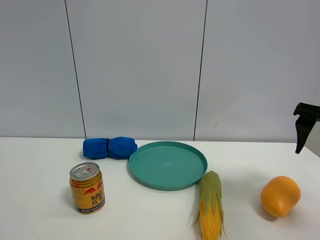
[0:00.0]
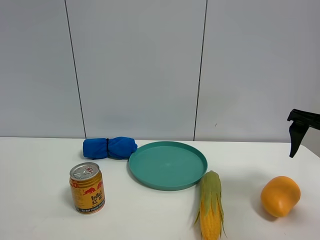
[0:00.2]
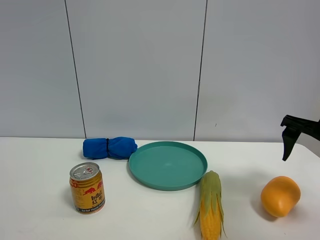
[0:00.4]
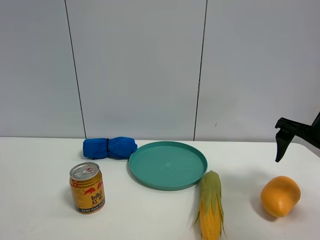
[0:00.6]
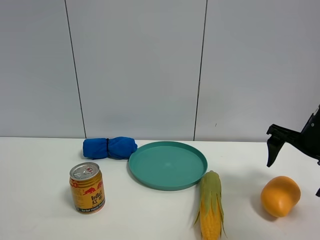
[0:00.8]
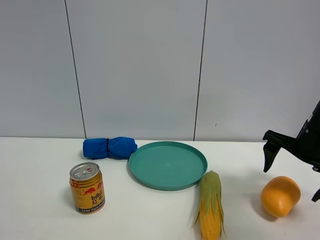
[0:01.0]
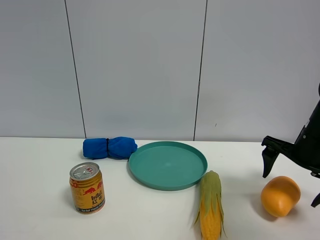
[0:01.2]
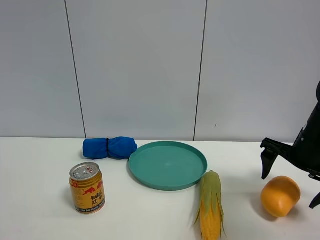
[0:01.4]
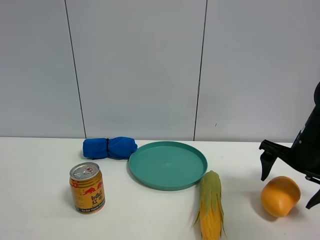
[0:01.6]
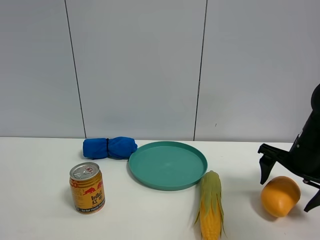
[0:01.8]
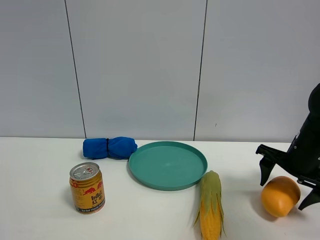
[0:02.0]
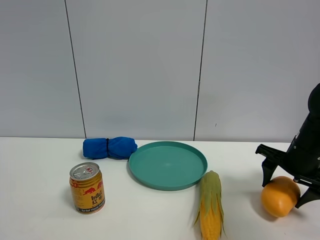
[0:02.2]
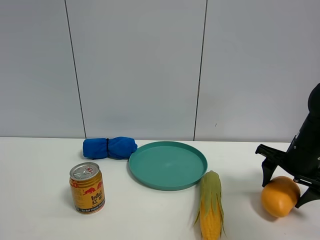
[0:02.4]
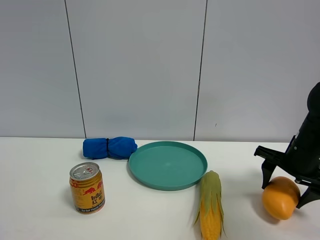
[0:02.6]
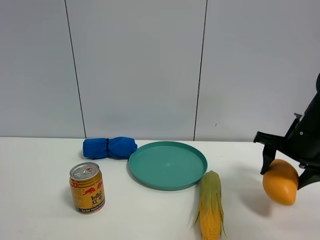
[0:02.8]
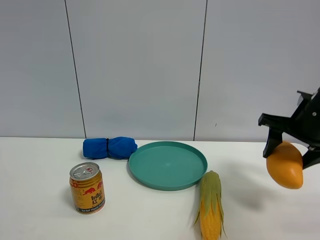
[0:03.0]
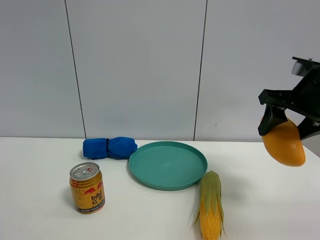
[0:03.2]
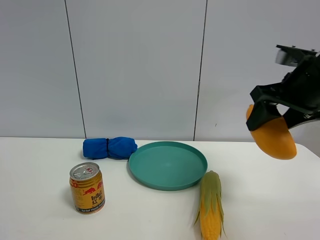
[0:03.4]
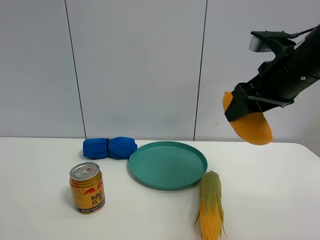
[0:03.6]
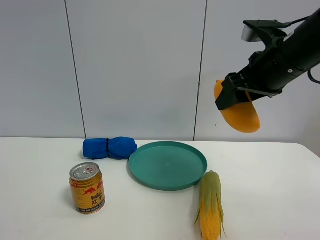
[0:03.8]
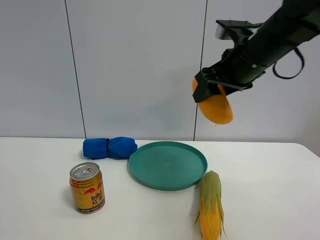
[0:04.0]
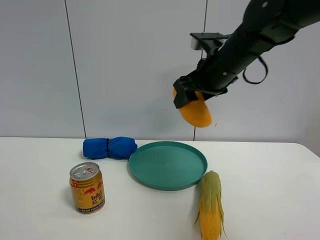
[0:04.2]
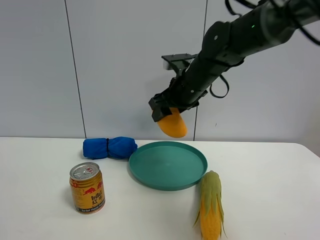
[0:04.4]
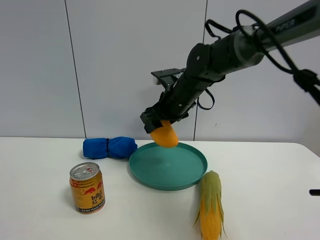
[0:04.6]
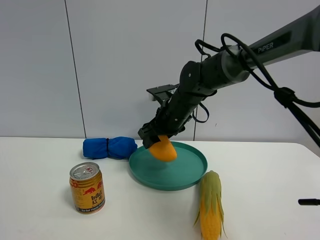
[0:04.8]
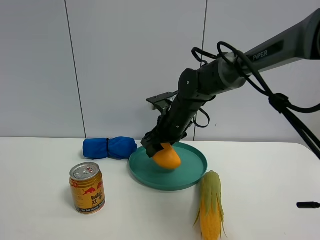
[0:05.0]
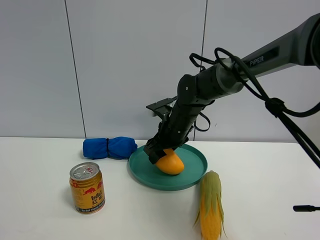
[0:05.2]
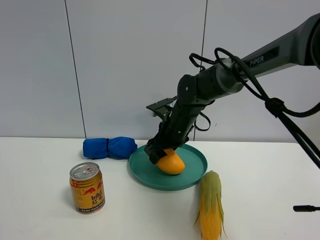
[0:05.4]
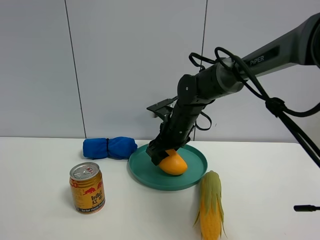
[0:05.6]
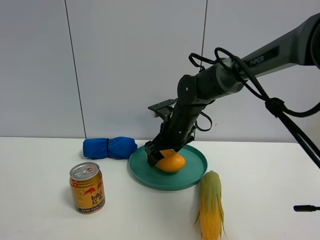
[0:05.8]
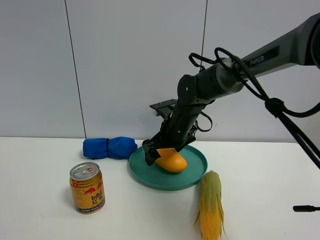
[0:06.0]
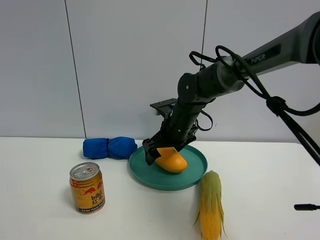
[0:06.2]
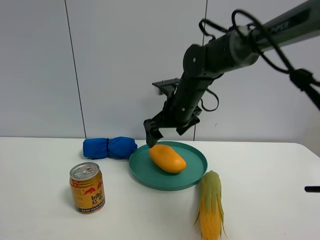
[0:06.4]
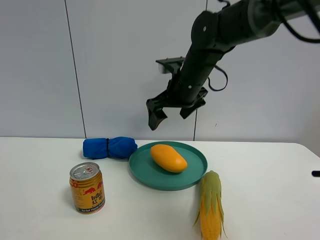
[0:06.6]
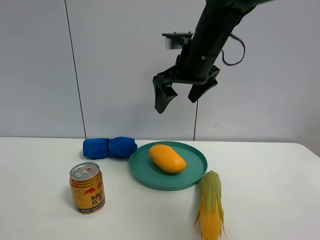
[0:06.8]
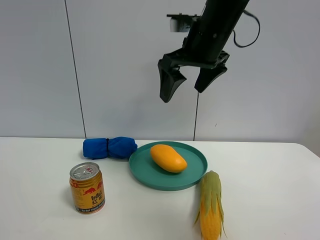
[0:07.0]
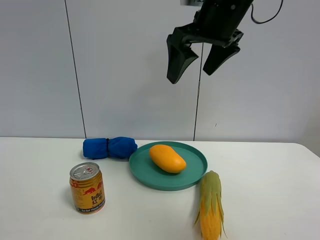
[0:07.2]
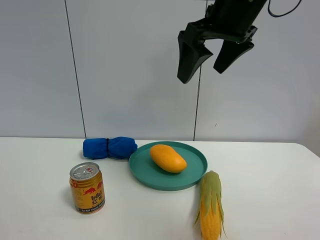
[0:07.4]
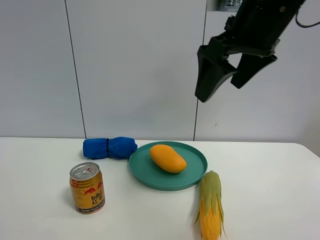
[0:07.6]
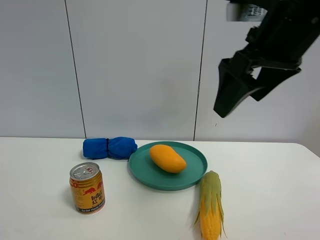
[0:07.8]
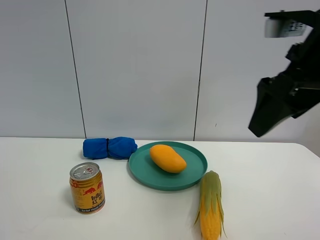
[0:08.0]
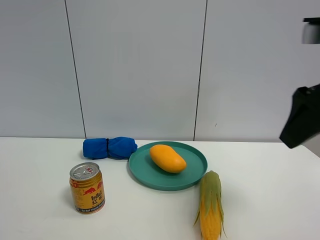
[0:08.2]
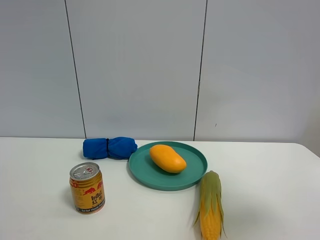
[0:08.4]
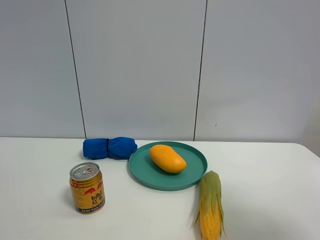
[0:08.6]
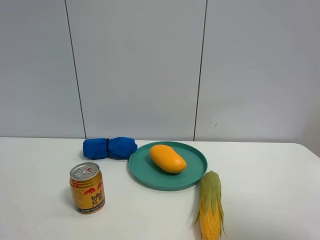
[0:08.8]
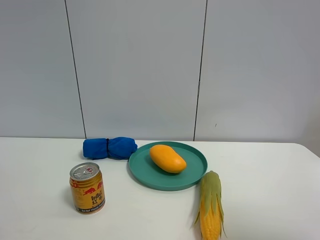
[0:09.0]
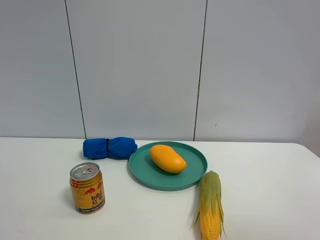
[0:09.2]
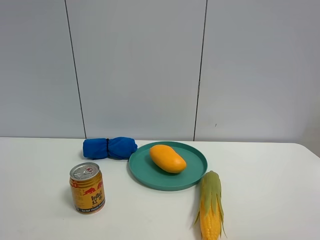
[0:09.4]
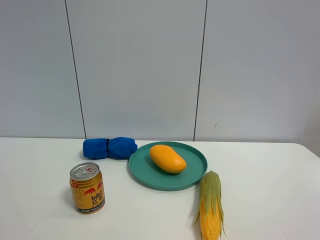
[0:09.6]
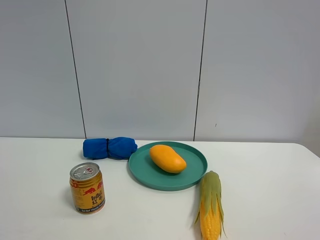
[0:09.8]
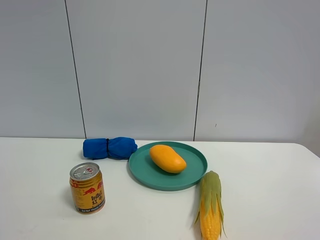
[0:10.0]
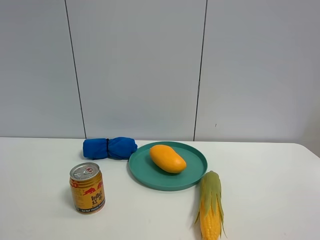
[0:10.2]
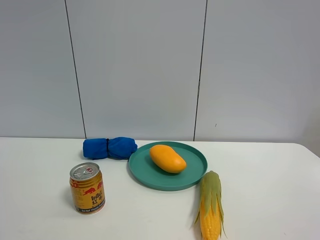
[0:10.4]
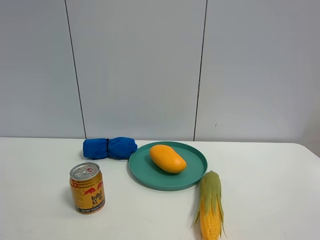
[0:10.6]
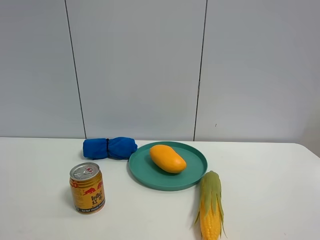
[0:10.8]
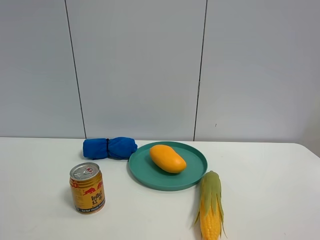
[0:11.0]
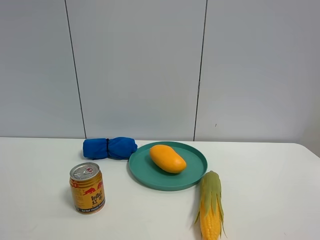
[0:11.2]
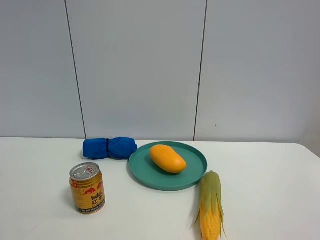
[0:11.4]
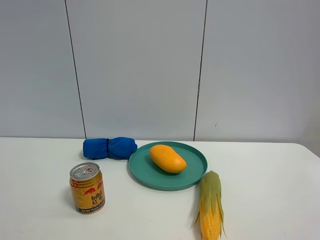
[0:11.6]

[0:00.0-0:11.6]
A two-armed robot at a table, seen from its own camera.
Task of the whole recording: the gripper move the object.
Step, 0:00.0 to 0:02.4: Grasp the mango with the right gripper.
Step, 0:02.6 to 0:06.2: Place the mango into the green plate with the right gripper.
0:00.0 to 0:01.4: The right gripper moves downward, roughly 10 cm.
0:01.4 to 0:02.8: The right gripper closes.
0:02.8 to 0:04.4: The right gripper travels to the left and forward by about 25 cm.
0:04.4 to 0:05.8: The right gripper is displaced downward by roughly 10 cm, and opens.
0:05.8 to 0:07.2: The right gripper heads upward and backward, covering roughly 25 cm.
0:07.2 to 0:08.8: The right gripper moves backward and to the right, roughly 30 cm.
0:08.8 to 0:10.2: The right gripper heads backward and downward, covering approximately 10 cm.
0:10.2 to 0:11.6: Both grippers stay about where they are.

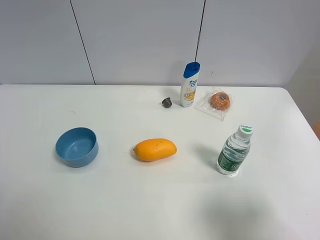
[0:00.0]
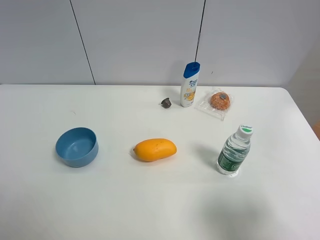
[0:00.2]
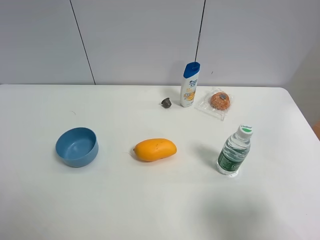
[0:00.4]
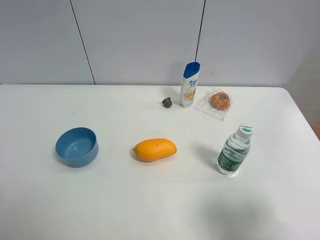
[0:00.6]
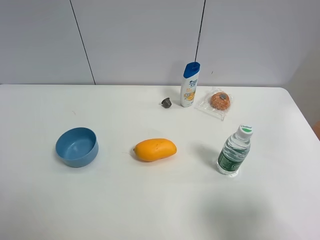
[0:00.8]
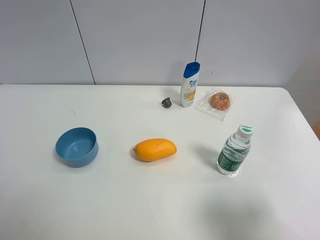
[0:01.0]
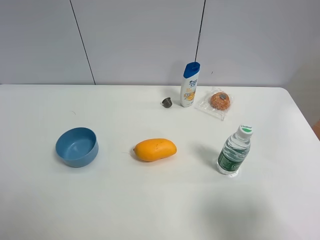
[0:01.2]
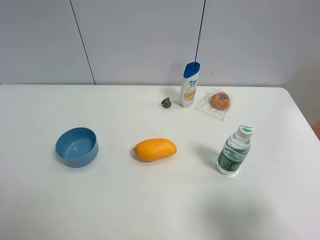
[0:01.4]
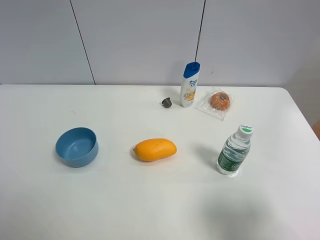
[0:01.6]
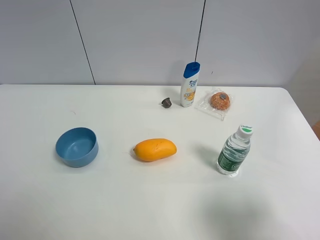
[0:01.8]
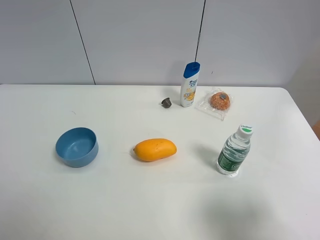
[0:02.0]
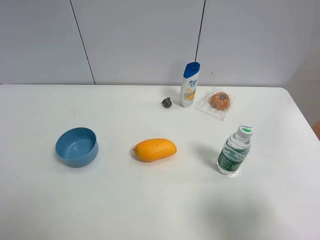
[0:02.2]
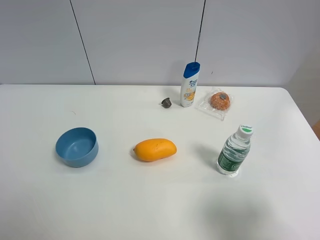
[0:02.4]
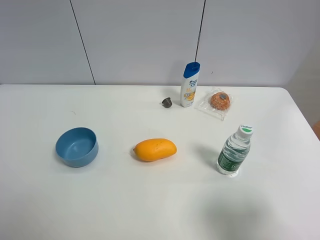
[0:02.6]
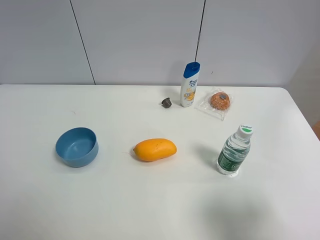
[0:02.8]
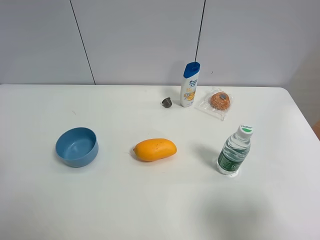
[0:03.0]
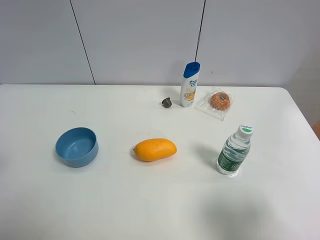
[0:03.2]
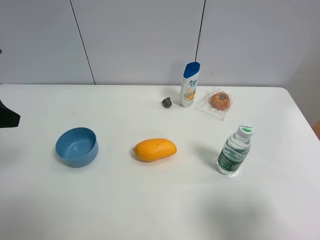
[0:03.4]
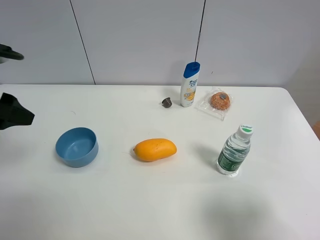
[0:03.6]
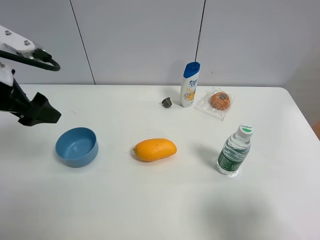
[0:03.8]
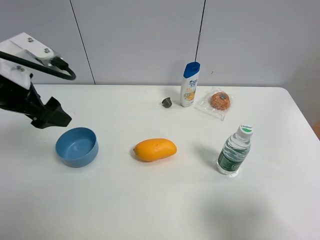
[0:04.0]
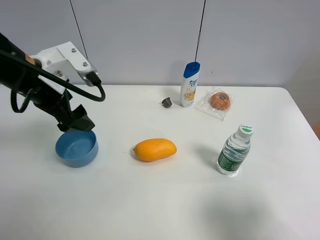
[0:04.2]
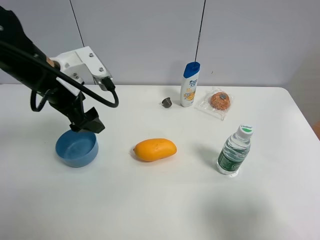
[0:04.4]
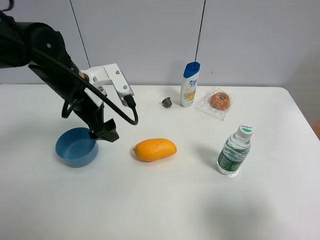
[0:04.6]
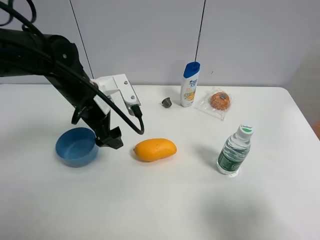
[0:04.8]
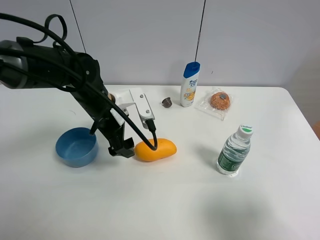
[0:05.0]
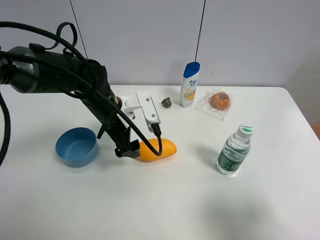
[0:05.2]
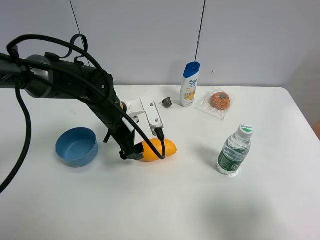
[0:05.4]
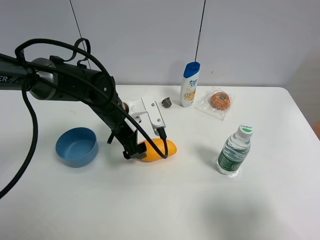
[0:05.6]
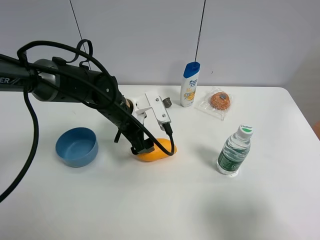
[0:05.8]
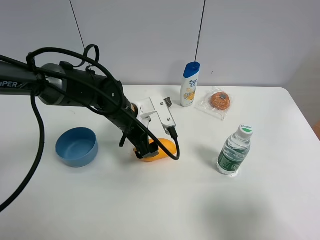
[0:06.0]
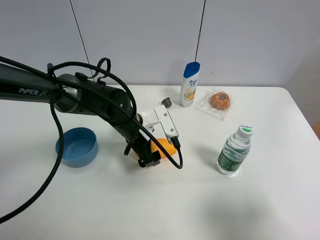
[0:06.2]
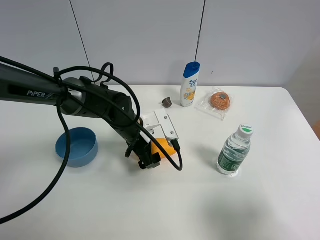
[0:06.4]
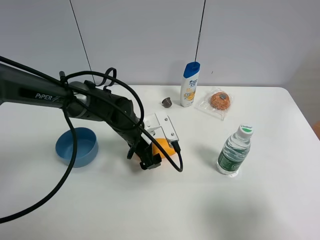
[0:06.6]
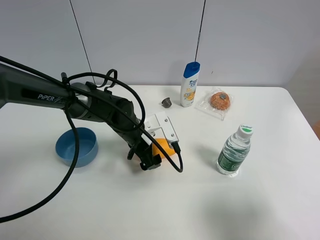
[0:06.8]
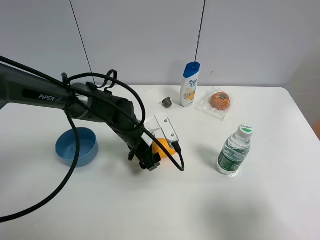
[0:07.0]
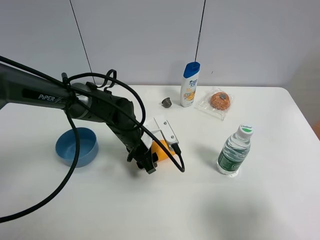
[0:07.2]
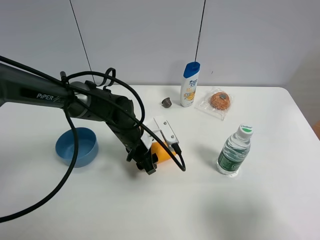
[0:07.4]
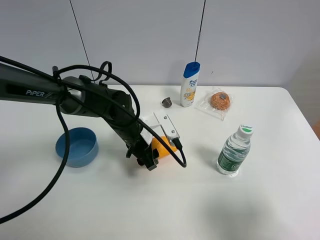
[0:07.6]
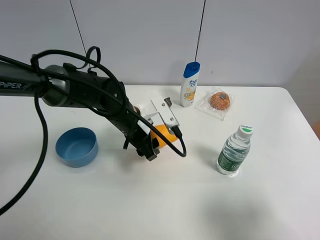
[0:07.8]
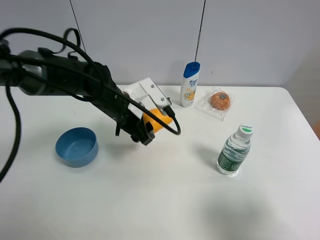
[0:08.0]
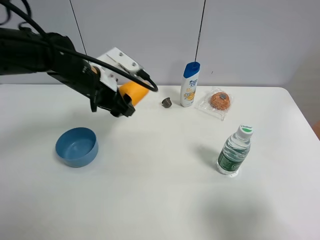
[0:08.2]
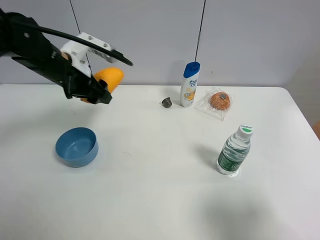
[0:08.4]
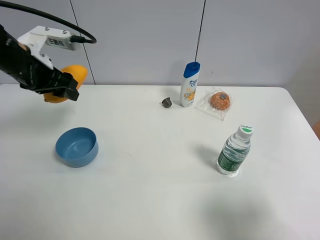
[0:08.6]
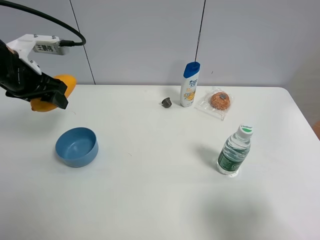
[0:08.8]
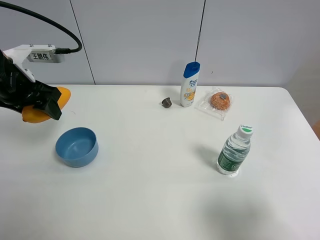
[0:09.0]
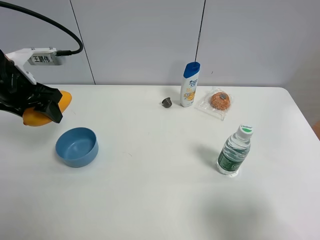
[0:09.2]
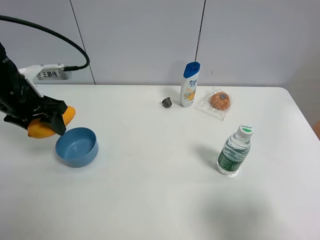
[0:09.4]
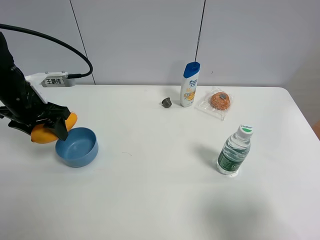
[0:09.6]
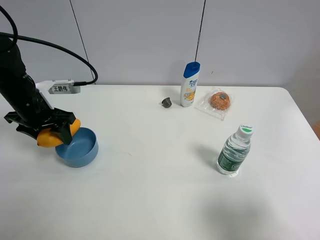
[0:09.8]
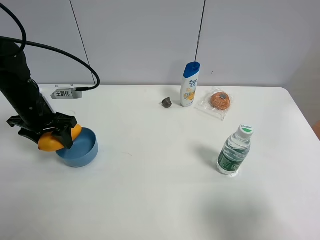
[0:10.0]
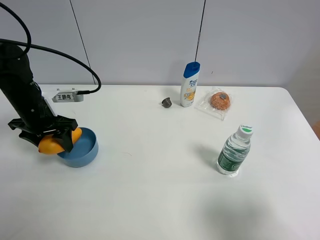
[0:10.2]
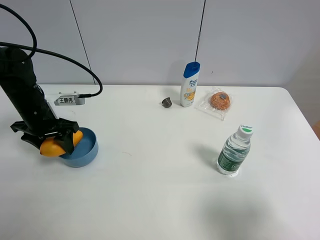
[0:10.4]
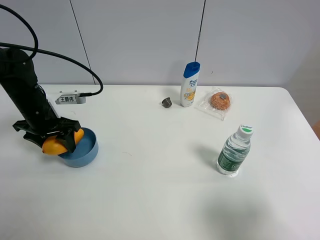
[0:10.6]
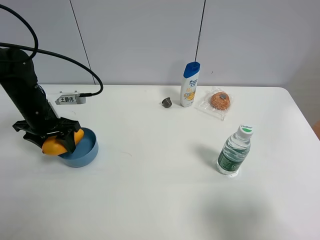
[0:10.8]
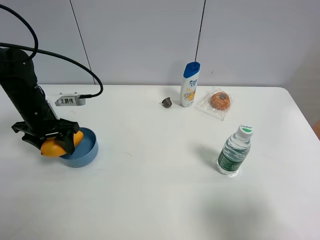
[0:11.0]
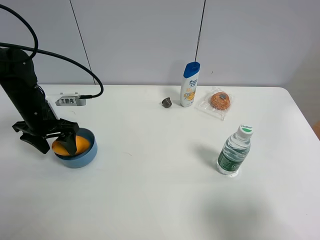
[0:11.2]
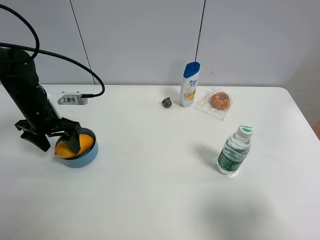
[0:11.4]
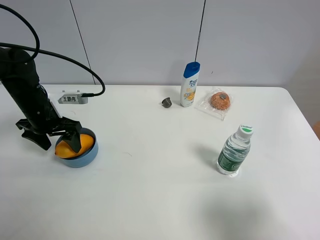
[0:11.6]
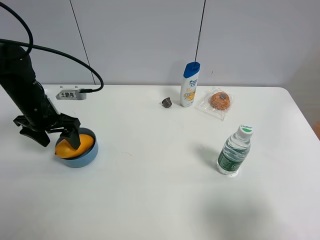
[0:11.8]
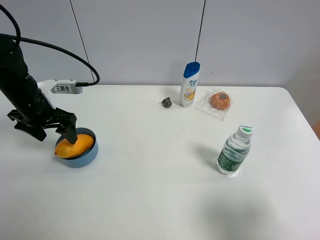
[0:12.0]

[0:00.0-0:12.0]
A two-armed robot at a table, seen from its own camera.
Task of the whole recording: the gripper move the object.
Step, 0:00.0 to 0:07.2: Grasp the mango with the left gripper.
Step, 0:07.4 to 0:11.6: Place the mango into the blue bowl with the left gripper.
0:00.0 to 0:01.6: Both grippers stay about where they are.
0:03.0 to 0:04.4: The left gripper shifts some 25 cm forward and to the right.
0:04.4 to 0:06.0: The left gripper travels downward and to the right by roughly 15 cm.
0:06.0 to 0:07.6: The left gripper closes.
0:07.6 to 0:09.0: The left gripper moves to the left and upward, about 25 cm.
0:09.0 to 0:10.4: The left gripper is displaced downward by some 10 cm.
0:10.4 to 0:12.0: The left gripper opens its fingers.
